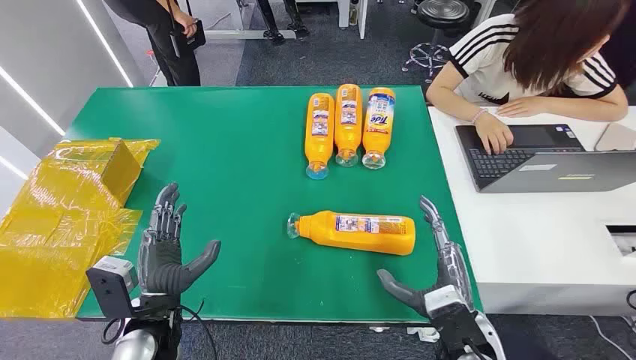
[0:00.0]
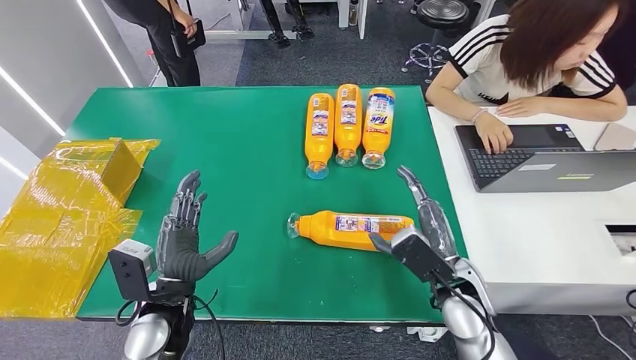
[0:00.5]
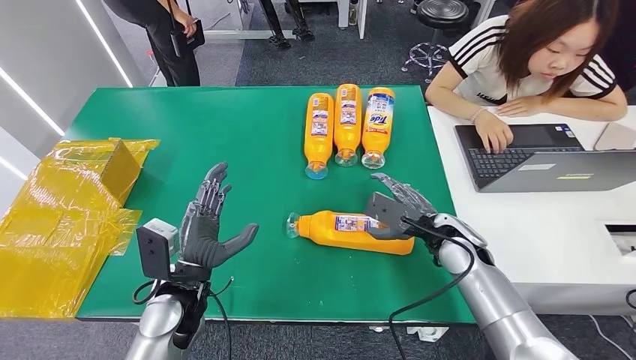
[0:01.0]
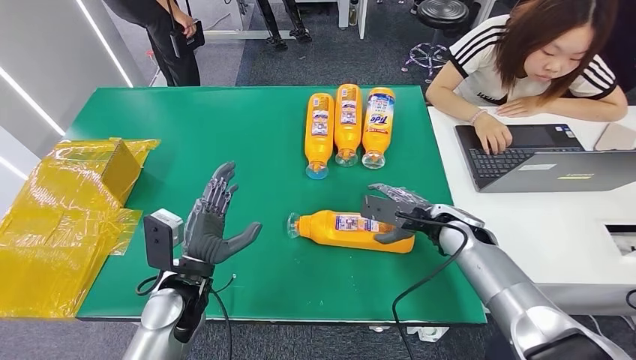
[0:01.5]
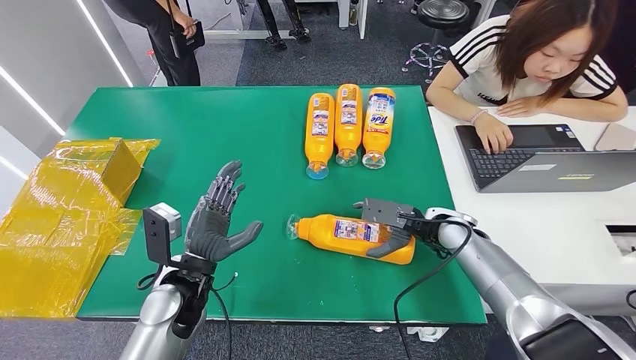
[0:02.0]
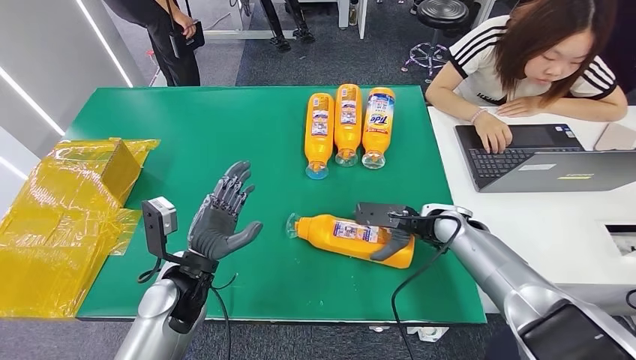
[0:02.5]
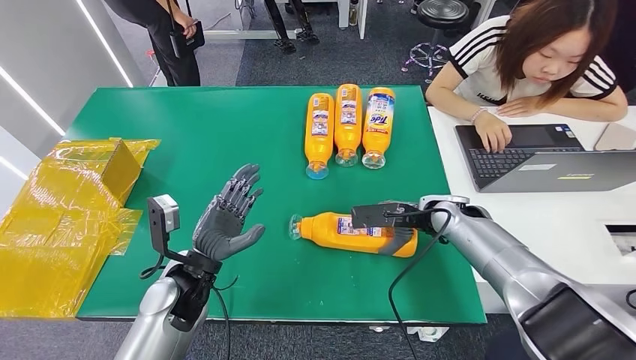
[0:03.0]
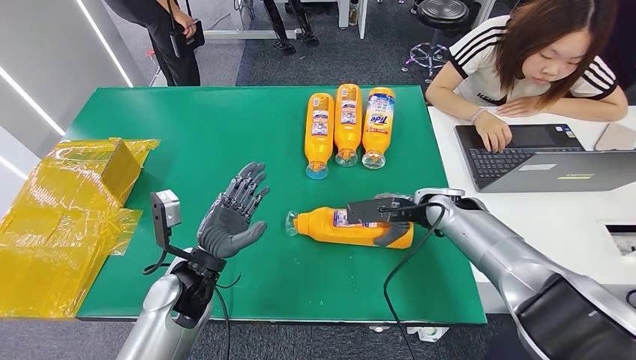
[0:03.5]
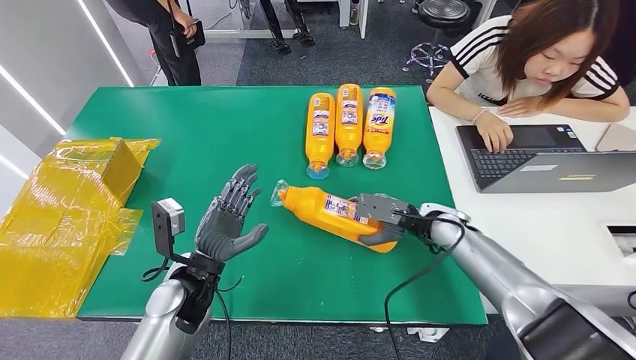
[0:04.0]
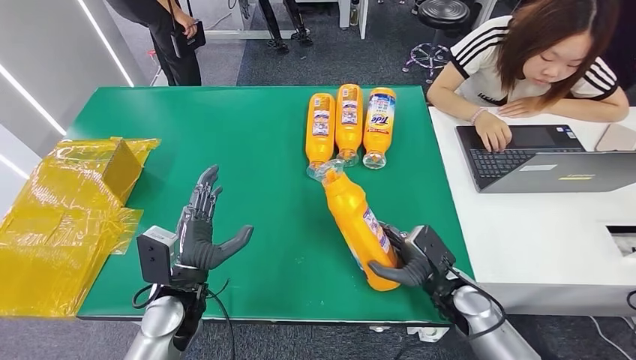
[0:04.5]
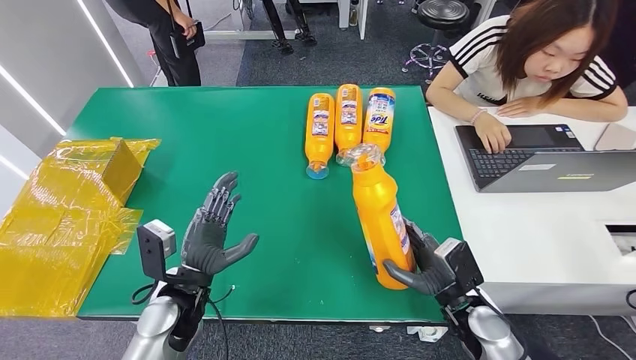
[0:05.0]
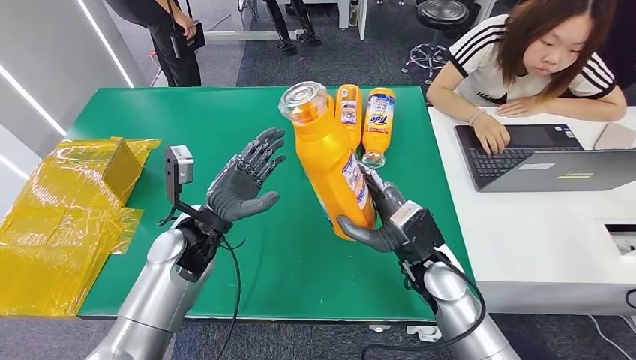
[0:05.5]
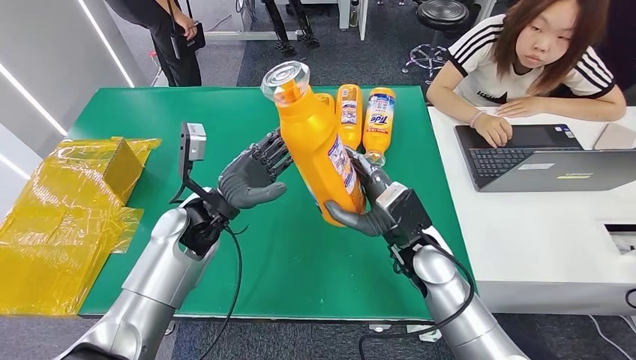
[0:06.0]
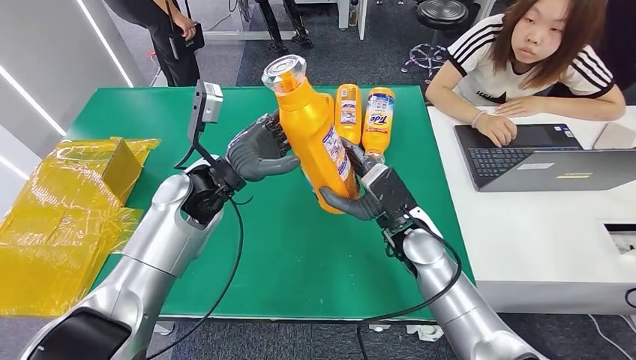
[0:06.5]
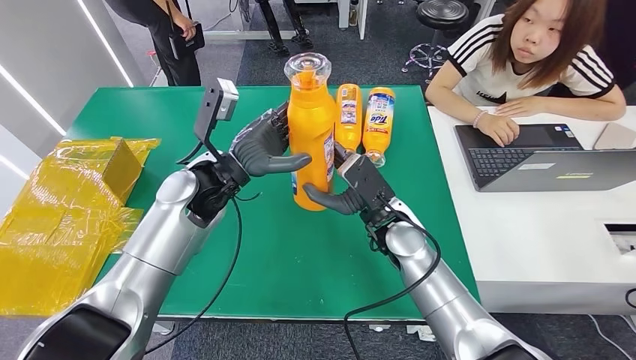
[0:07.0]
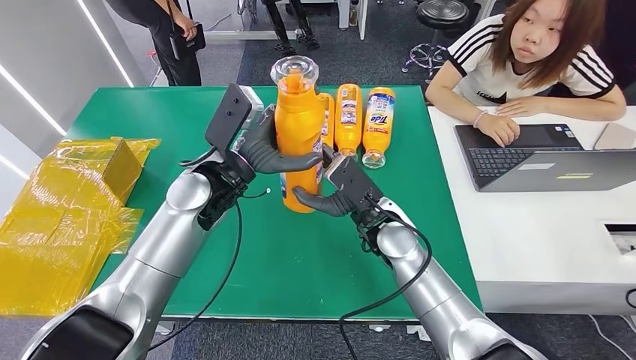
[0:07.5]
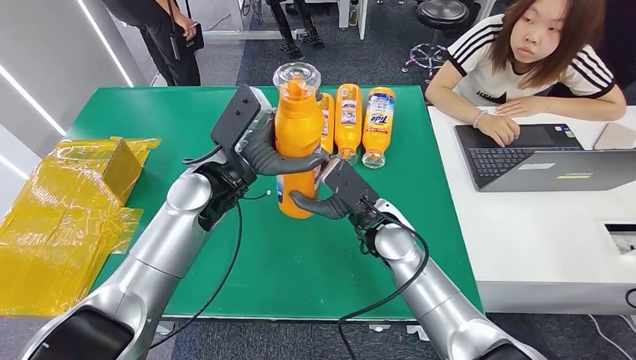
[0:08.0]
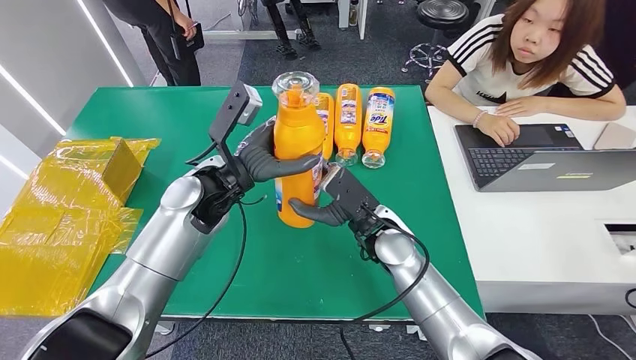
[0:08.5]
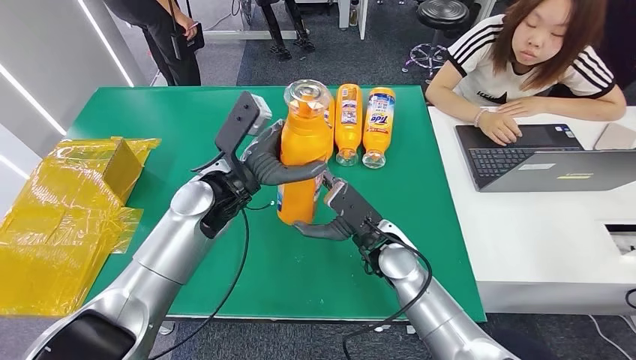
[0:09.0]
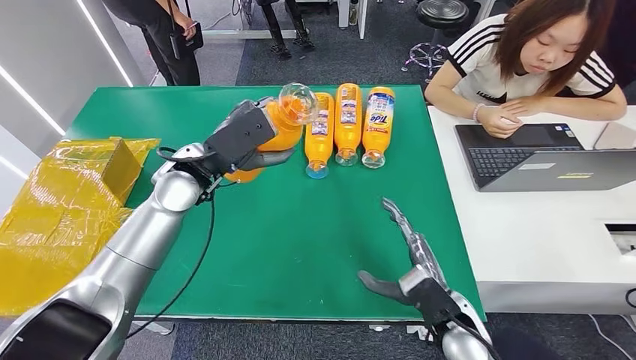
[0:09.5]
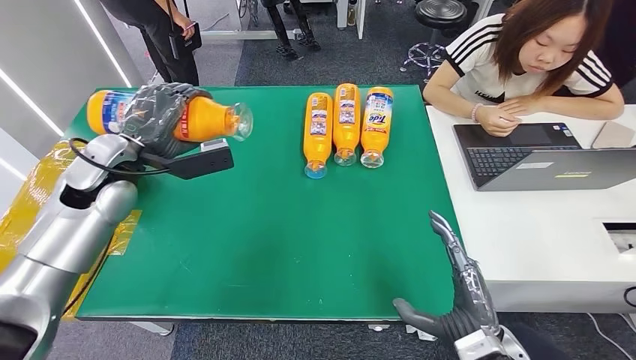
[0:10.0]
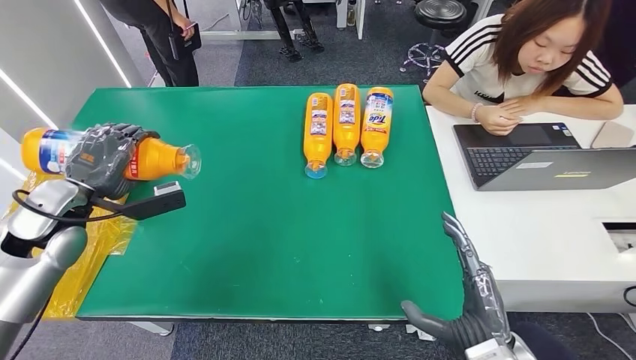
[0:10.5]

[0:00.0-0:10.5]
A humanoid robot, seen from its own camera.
Step, 0:00.0 to 0:05.5: Pick up the bottle from the table.

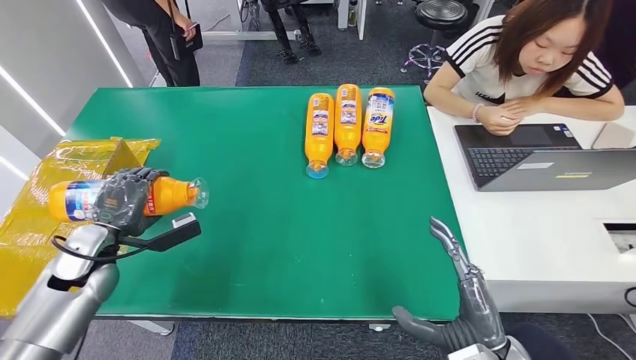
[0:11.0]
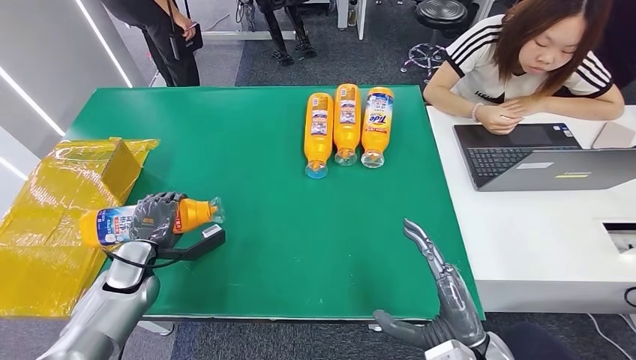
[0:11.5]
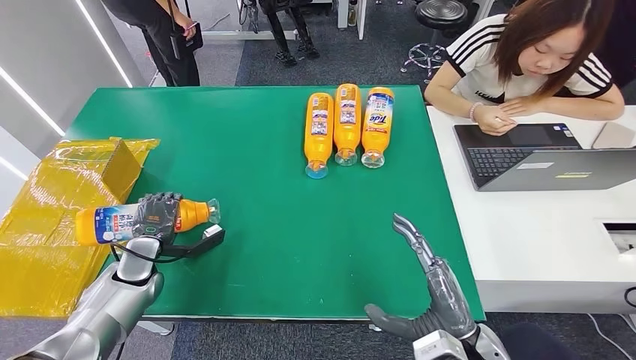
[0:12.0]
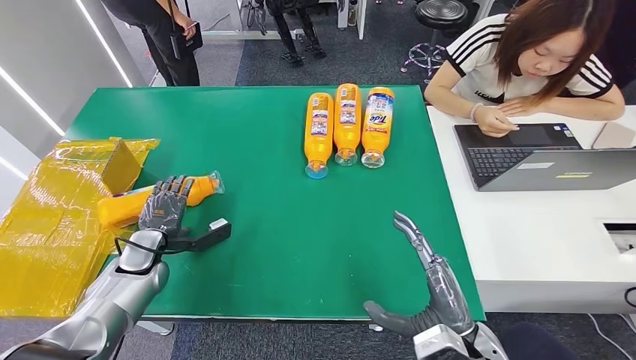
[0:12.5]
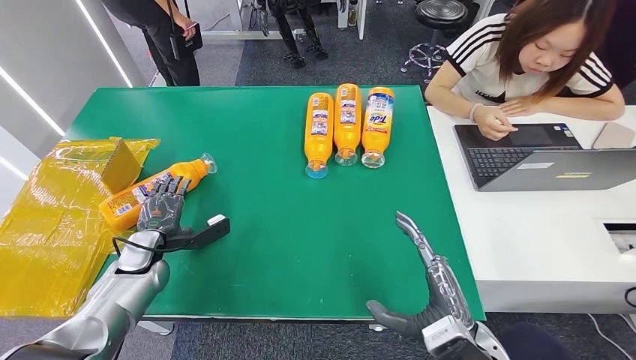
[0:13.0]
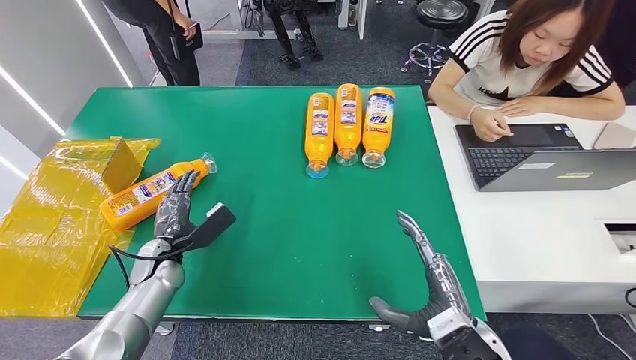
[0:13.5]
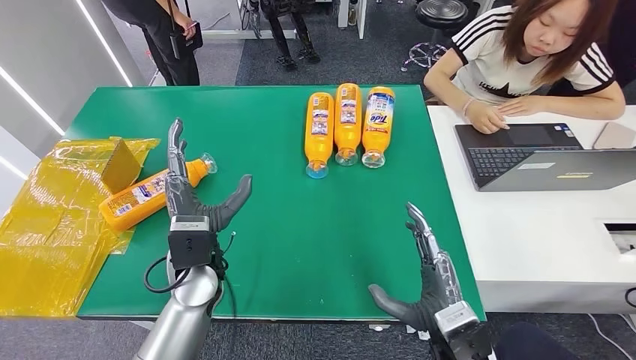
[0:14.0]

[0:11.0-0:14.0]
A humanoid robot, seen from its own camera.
Step, 0:11.0 to 0:14.0: Turn the bottle to the front side.
0:11.0 to 0:12.5: The left hand travels downward by approximately 10 cm.
0:12.5 to 0:14.0: The left hand heads to the right and upward, covering roughly 20 cm.

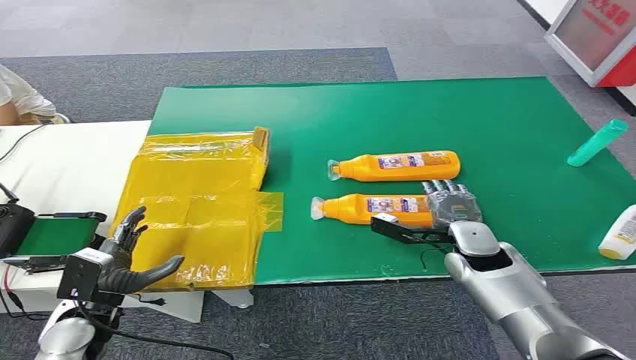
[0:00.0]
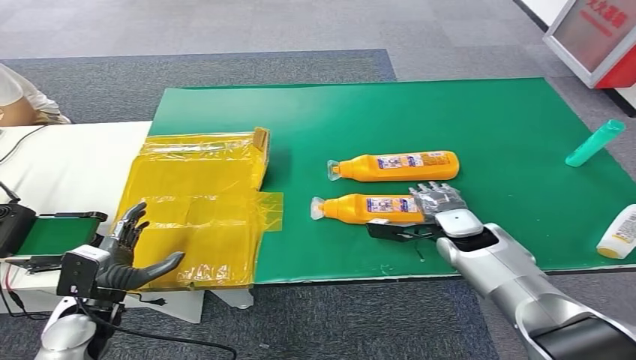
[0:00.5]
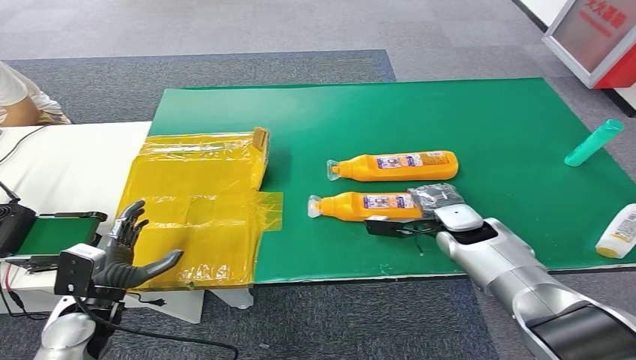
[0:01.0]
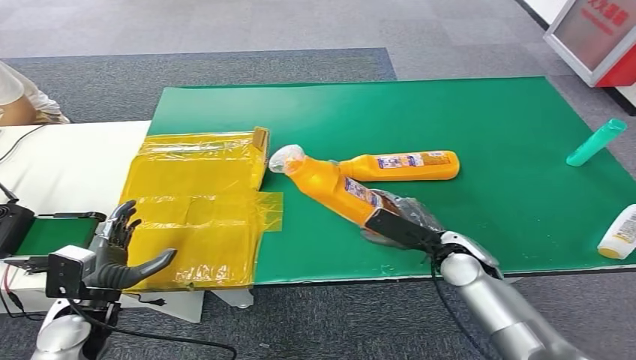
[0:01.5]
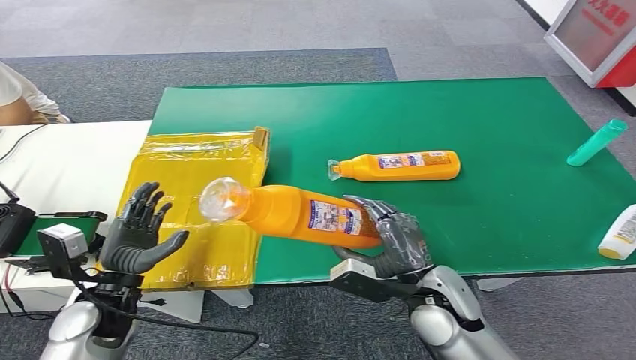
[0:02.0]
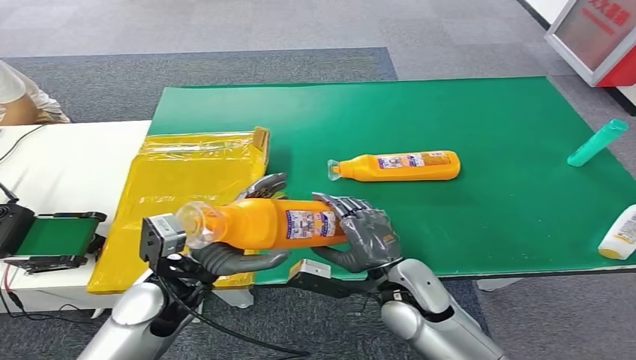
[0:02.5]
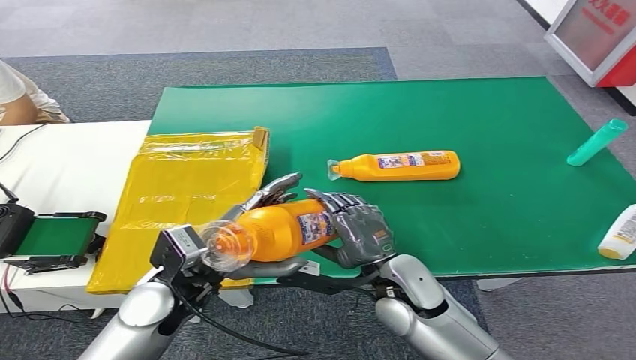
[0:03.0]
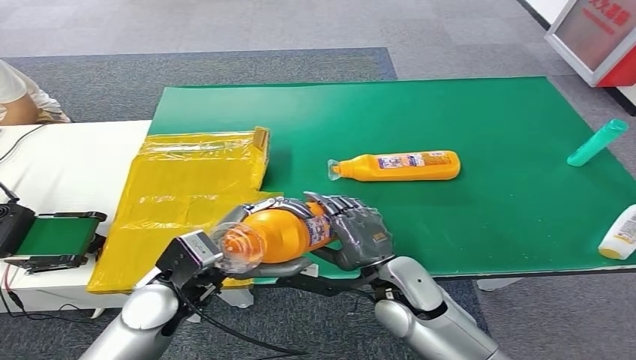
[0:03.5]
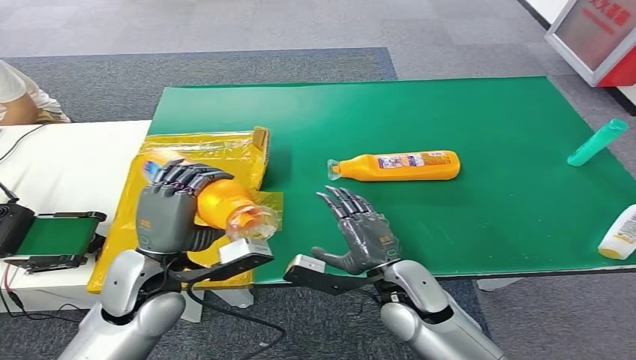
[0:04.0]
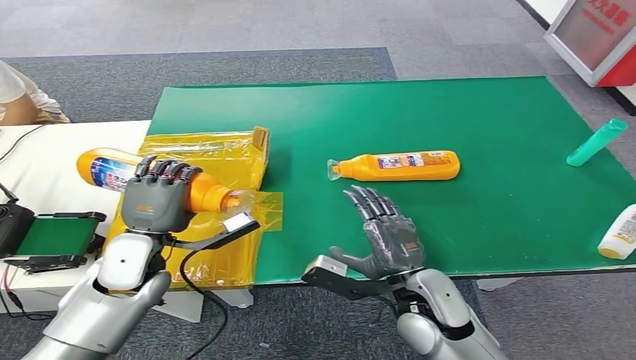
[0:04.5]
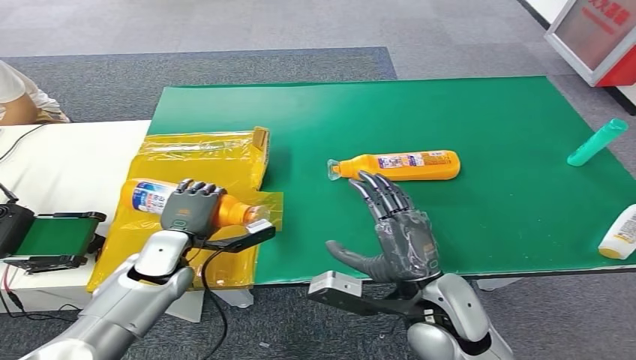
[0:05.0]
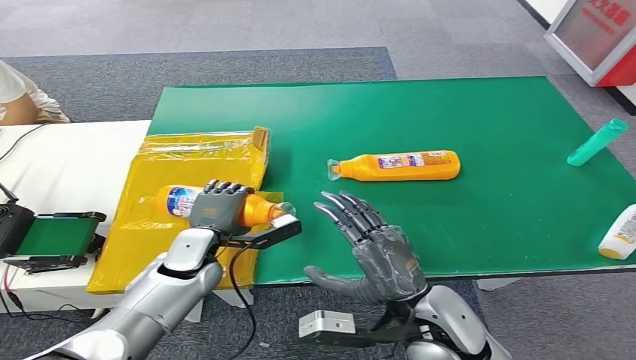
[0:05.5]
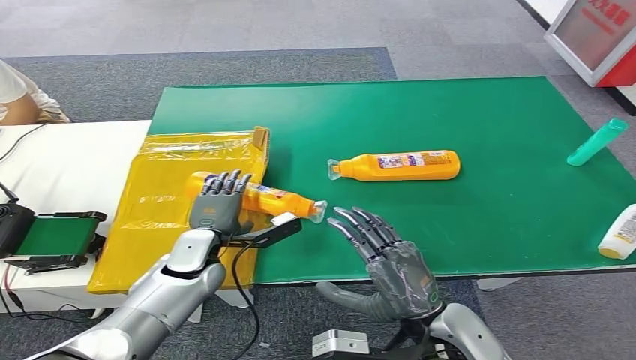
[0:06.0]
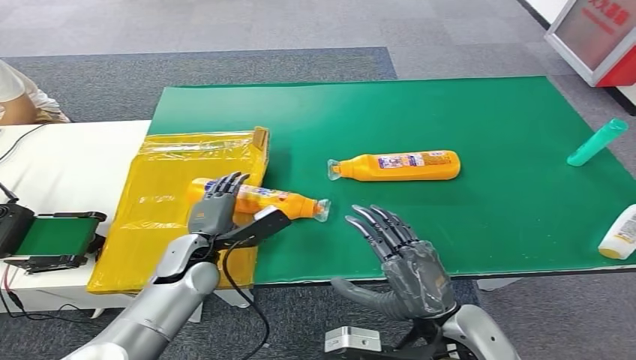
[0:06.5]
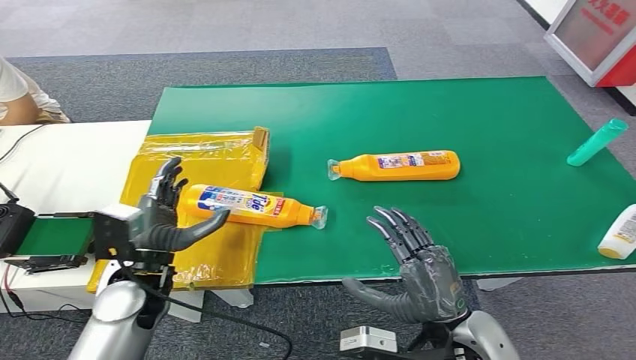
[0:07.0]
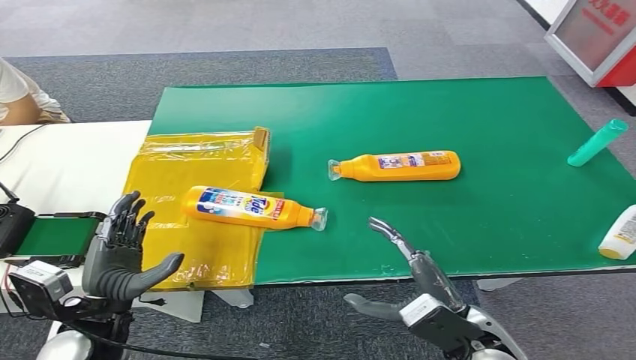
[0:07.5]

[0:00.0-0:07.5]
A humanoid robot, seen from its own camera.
Step, 0:00.0 to 0:02.0: Pick up the bottle from the table.
Step, 0:04.0 to 0:07.5: Turn the bottle to the front side.
0:02.0 to 0:04.0: The left hand goes roughly 10 cm to the right and upward.
0:04.0 to 0:05.5: The right hand is displaced backward and upward by roughly 10 cm. The left hand moves downward and forward, about 15 cm.
0:05.5 to 0:07.5: The right hand moves to the right, approximately 5 cm. Meanwhile the left hand moves backward and to the left, some 15 cm.
